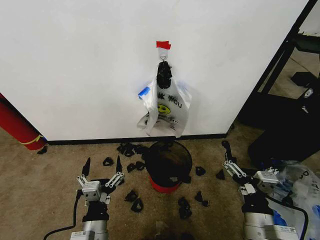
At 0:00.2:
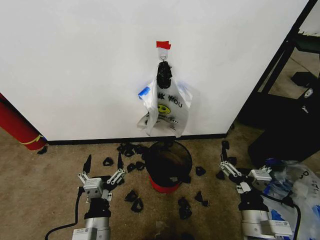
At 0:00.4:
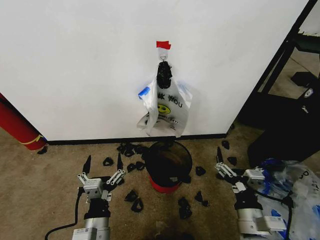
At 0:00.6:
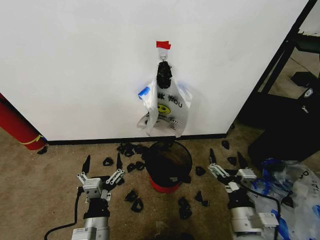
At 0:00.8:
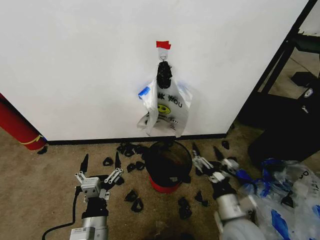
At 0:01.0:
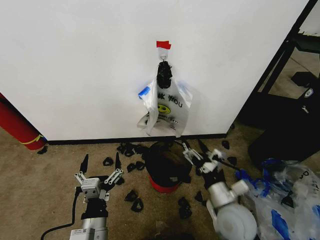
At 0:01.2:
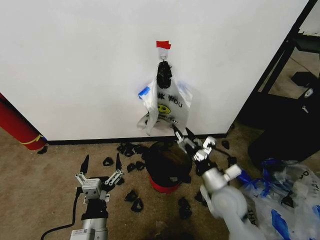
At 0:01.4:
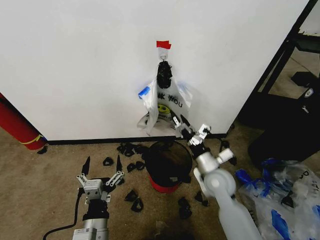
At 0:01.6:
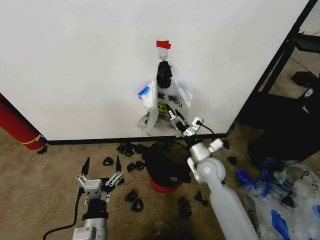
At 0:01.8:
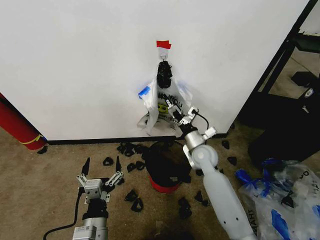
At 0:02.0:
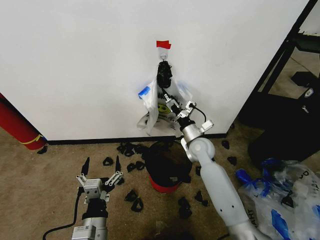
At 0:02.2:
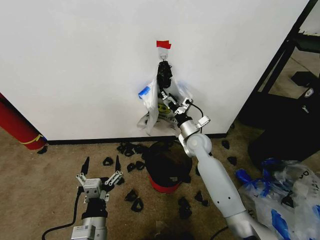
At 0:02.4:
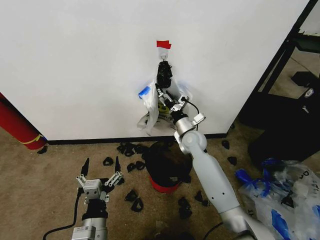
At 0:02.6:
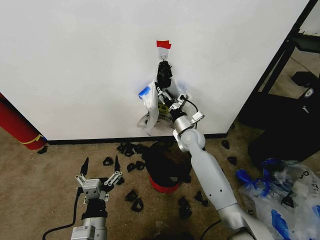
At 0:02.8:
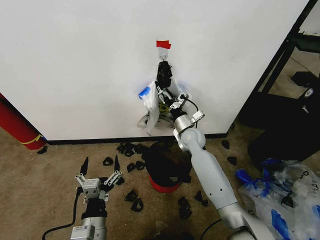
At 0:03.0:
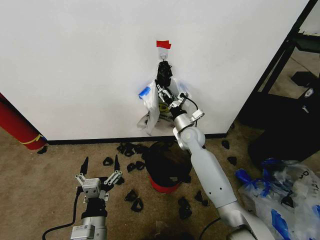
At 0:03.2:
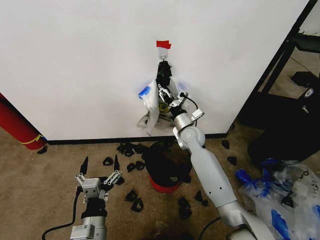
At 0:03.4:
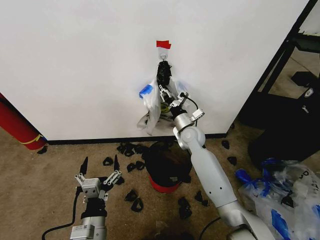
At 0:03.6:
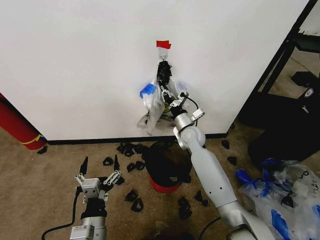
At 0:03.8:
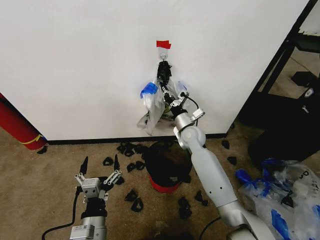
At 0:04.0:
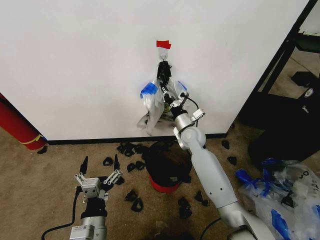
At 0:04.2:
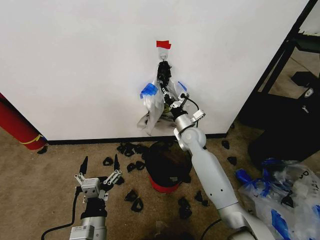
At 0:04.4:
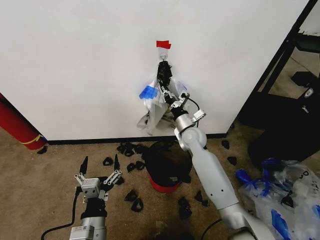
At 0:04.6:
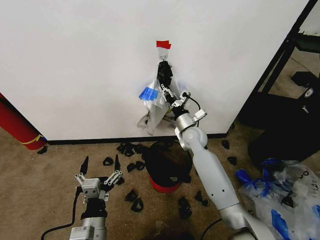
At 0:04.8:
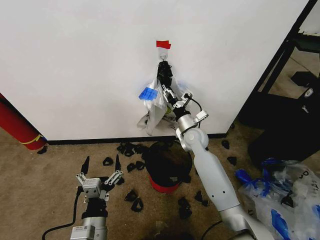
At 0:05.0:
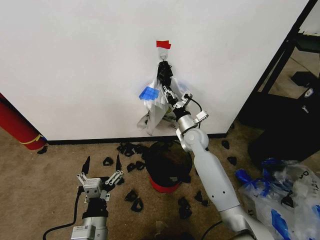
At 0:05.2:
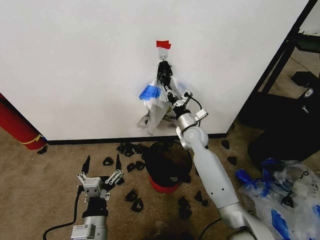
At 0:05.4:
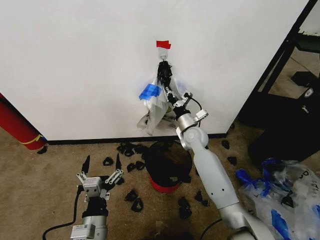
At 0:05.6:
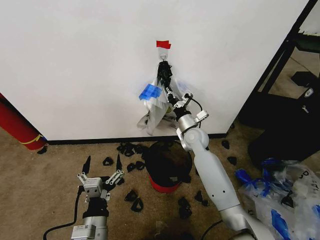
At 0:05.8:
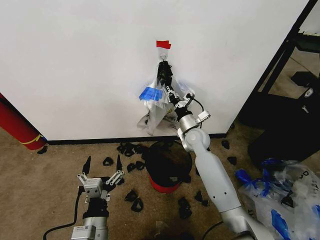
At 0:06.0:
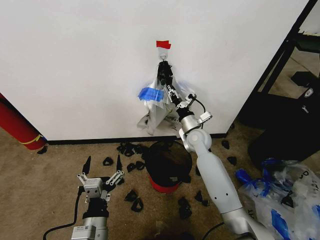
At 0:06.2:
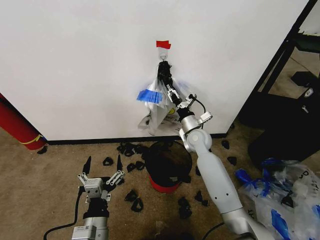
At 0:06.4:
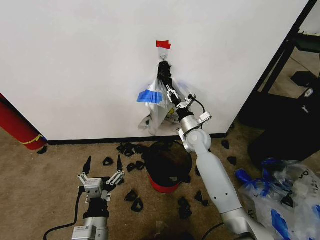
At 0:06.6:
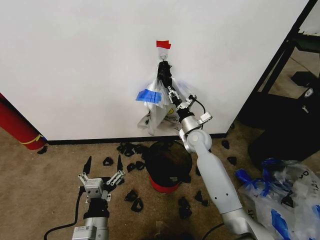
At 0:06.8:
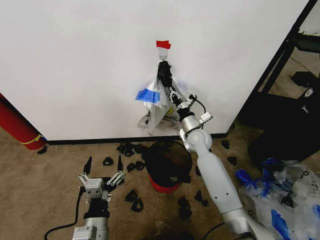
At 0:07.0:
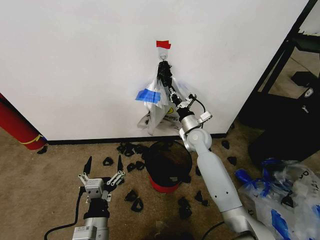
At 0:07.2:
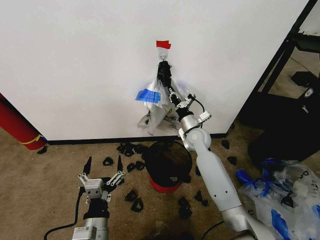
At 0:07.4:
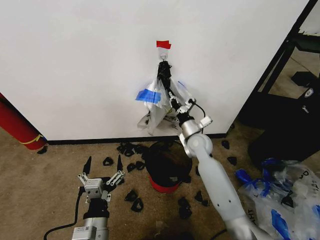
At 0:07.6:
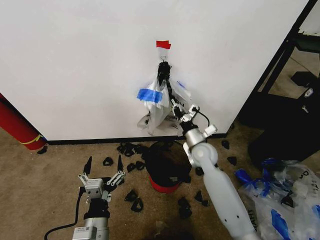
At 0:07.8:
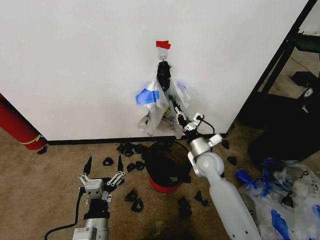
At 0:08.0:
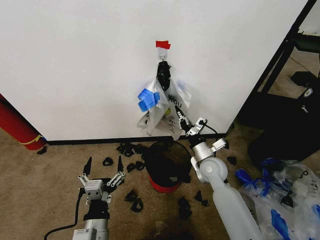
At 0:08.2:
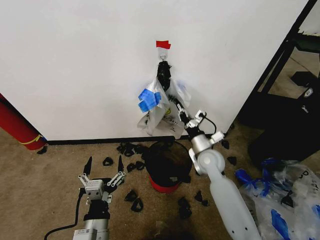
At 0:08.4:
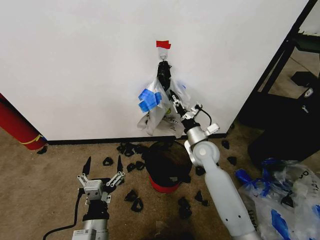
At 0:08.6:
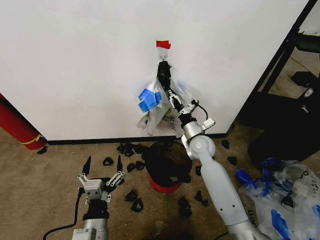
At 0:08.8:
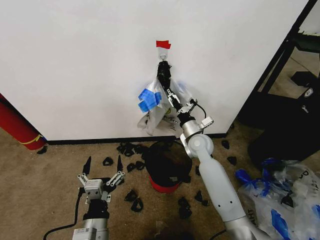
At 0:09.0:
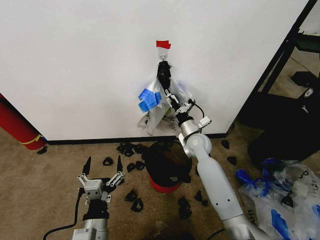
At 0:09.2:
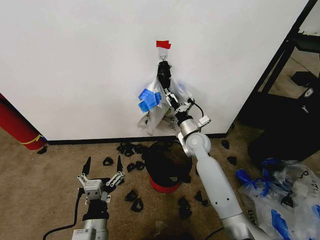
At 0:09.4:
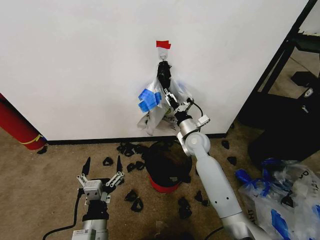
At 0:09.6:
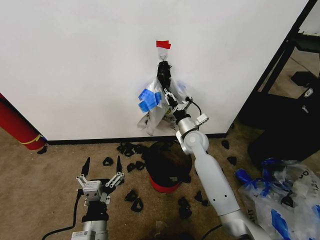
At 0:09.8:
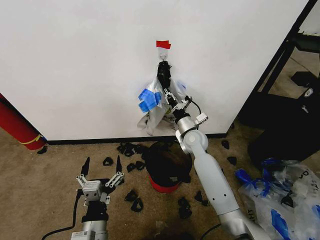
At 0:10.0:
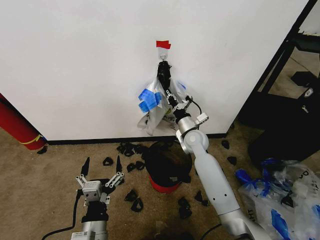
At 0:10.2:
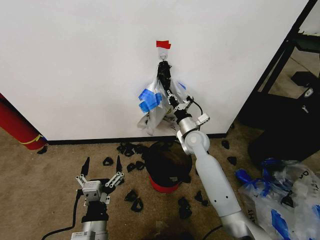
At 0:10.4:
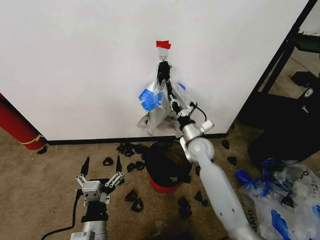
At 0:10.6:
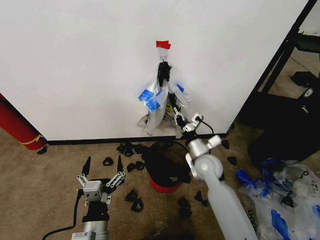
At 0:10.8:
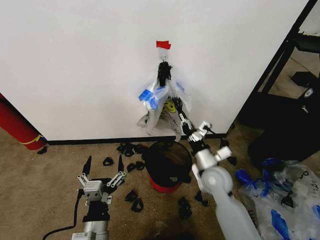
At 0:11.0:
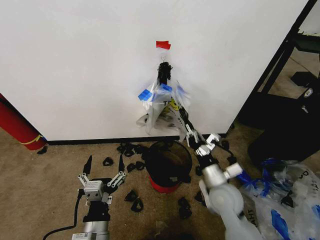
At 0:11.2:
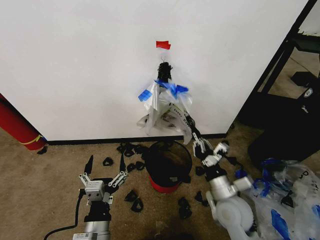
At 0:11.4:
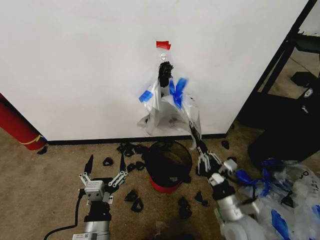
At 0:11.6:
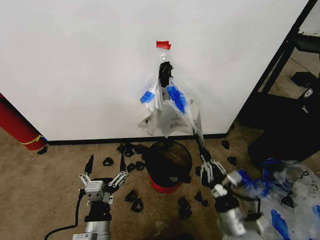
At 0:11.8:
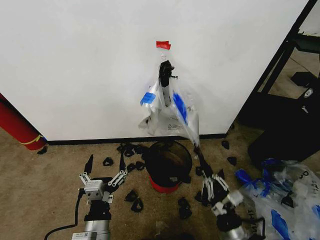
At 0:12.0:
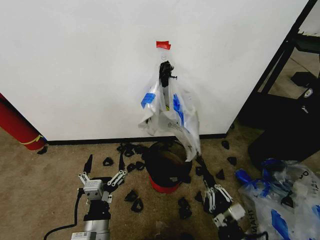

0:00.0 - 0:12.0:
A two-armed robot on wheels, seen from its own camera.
Task of the whole recording: Pick up the garbage bag from the wall and place it over the trash bin.
0:01.6 - 0:03.0: The right gripper travels forward by about 10 cm.
0:03.0 - 0:04.4: The right gripper closes up.
0:04.4 - 0:06.0: There are only small adjustments of the grippers.
0:06.0 - 0:07.6: The right gripper shifts by roughly 5 cm, and closes up.
0:07.6 - 0:09.0: The right gripper opens.
0:09.0 - 0:10.4: The right gripper closes.
0:10.4 - 0:12.0: The right gripper travels backward by some 35 cm.

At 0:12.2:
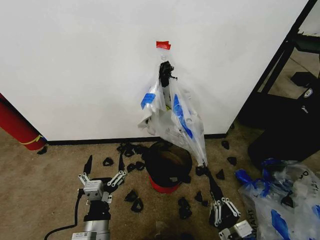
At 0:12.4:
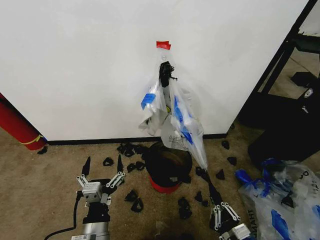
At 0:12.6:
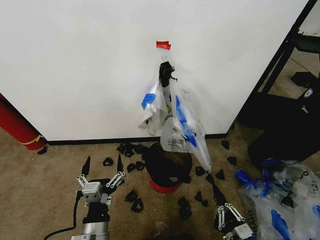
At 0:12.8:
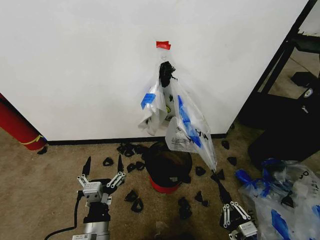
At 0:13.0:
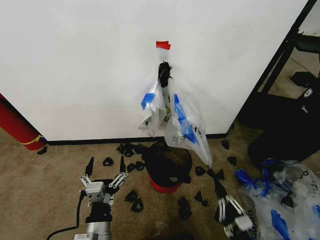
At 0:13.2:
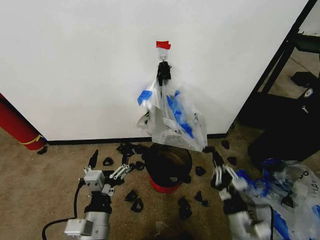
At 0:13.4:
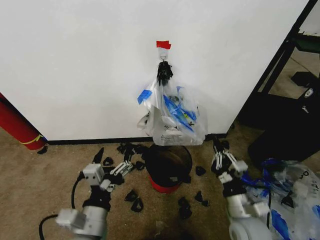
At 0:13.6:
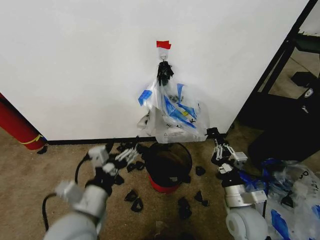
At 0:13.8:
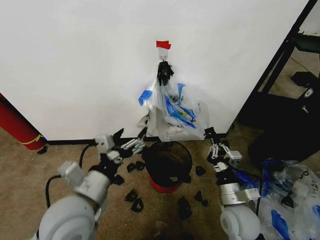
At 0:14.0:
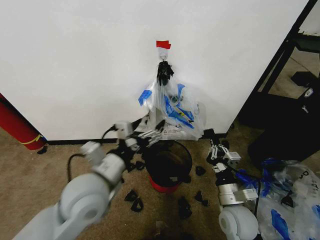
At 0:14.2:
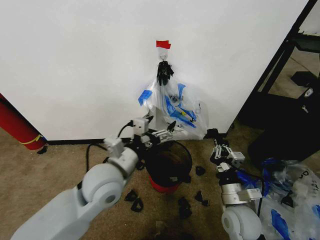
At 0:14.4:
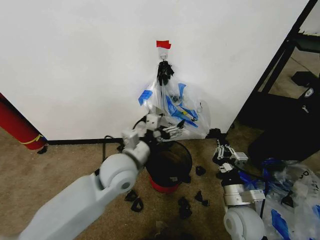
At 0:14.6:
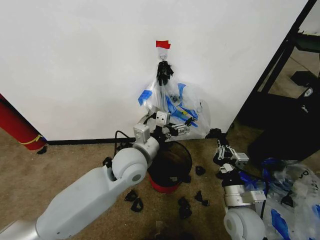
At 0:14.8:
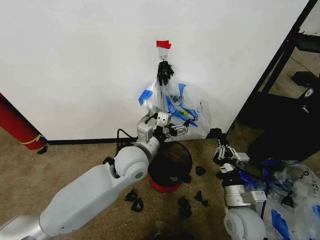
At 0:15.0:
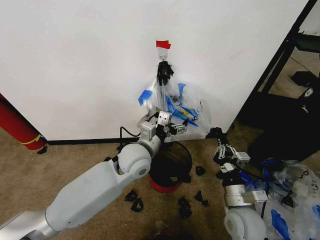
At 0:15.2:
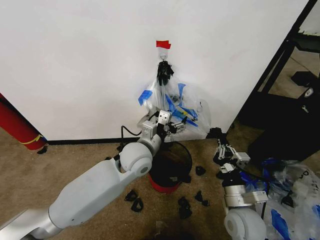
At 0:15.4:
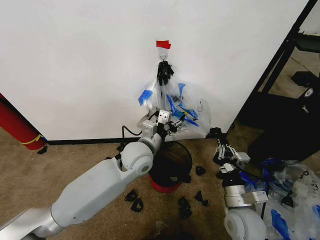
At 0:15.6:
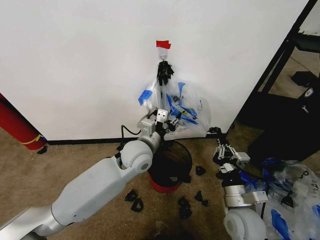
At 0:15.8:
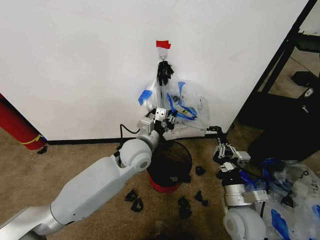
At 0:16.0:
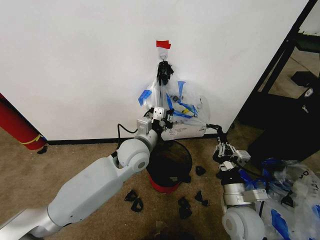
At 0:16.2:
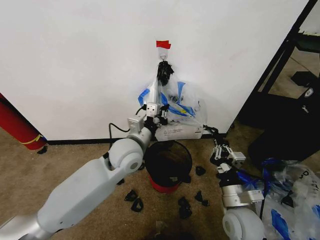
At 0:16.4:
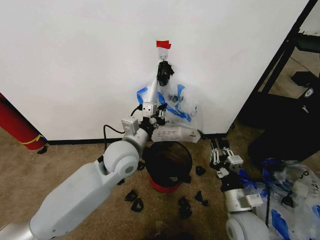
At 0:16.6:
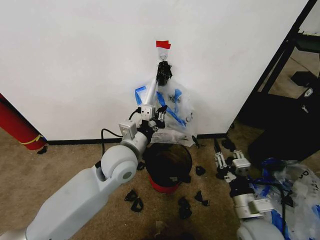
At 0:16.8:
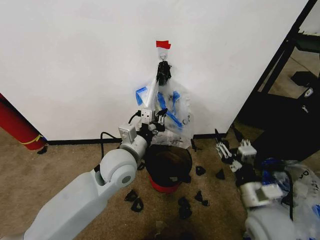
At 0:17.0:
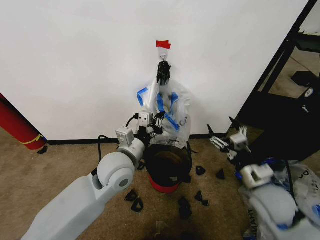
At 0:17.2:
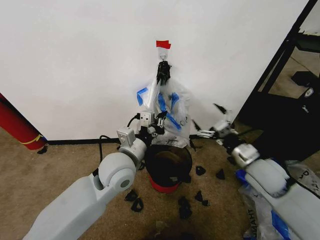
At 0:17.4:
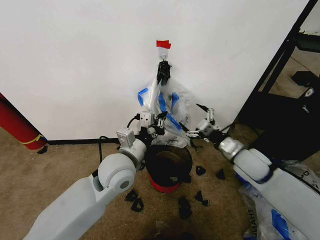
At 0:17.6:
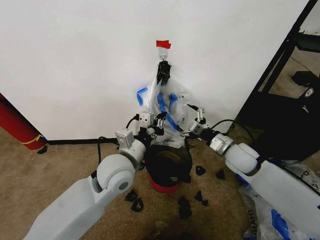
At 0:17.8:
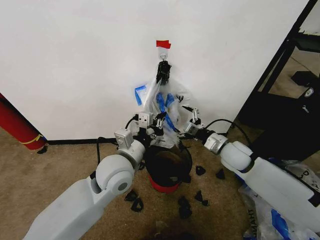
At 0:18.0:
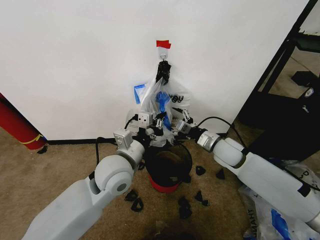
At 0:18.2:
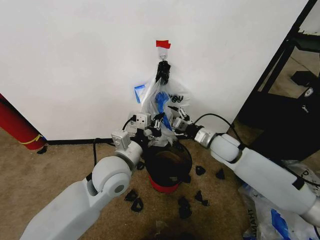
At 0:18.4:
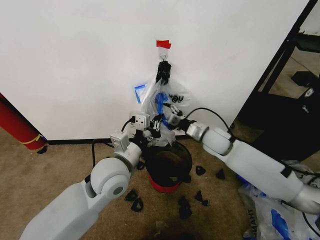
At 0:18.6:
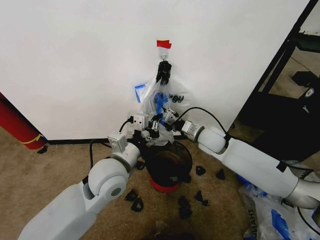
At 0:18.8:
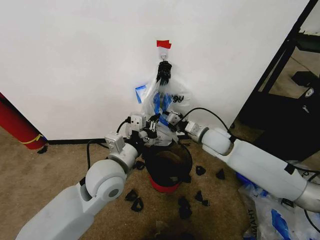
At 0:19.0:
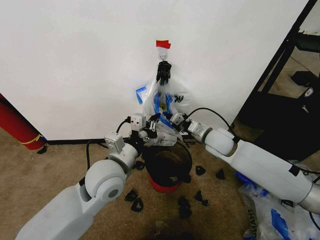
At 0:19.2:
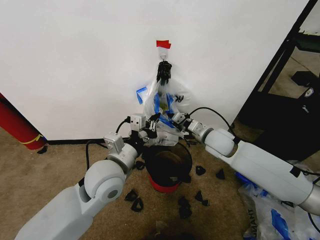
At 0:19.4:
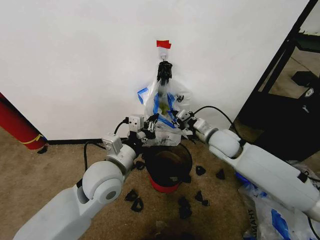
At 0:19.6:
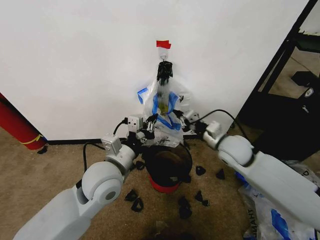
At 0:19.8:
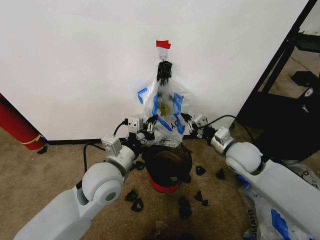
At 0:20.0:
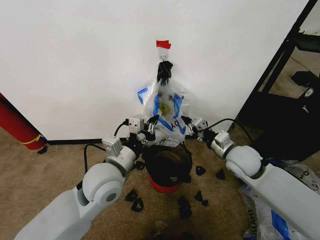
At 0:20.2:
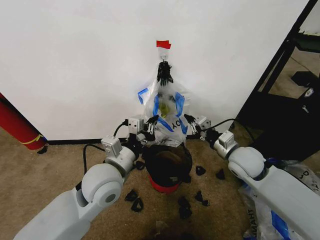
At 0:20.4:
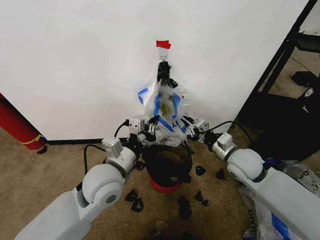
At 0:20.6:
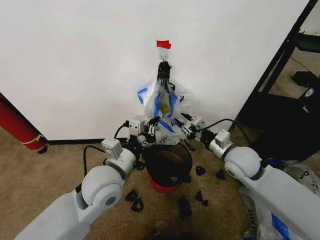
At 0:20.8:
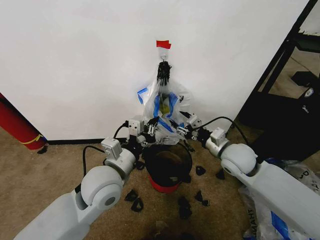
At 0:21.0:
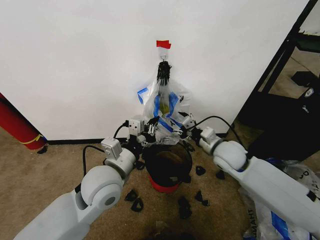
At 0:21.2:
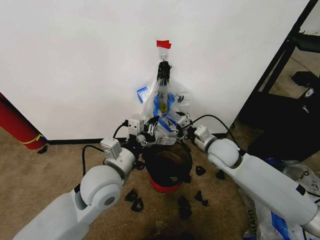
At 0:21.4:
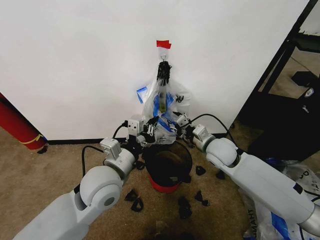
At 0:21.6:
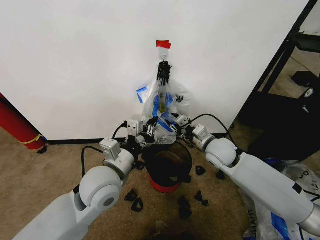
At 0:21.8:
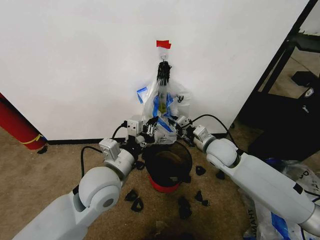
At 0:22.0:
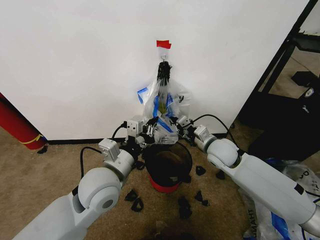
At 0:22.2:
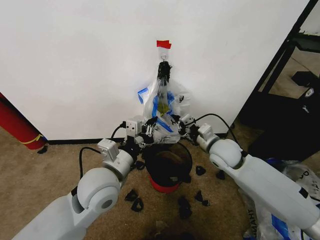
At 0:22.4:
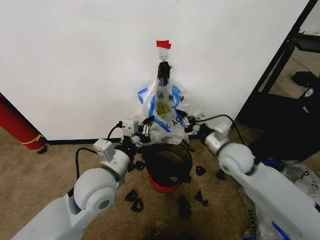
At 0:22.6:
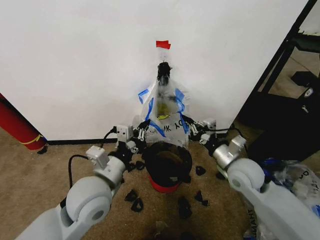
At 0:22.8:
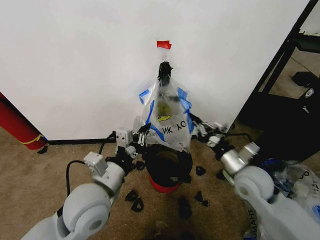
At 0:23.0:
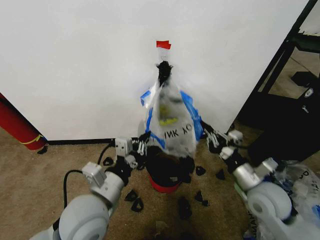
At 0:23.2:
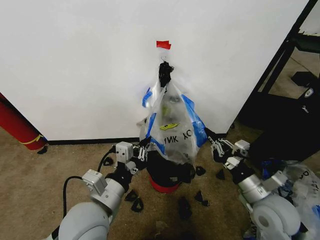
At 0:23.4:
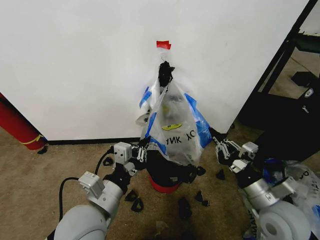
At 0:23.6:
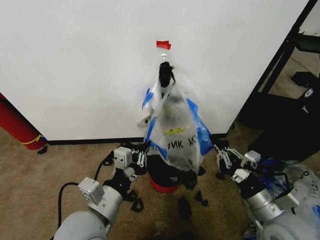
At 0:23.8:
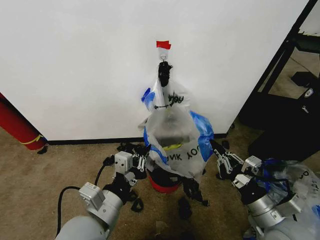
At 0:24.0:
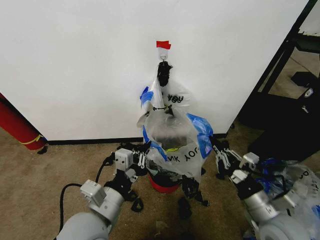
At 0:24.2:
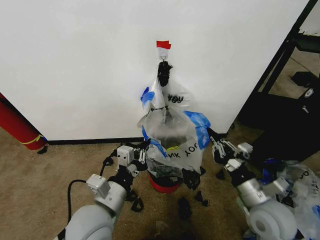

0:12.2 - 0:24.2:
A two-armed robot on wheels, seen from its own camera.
Task of the whole recording: Pick up the garbage bag from the wall and place it over the trash bin.
0:12.2 - 0:13.8: The right gripper is displaced forward and upward by some 15 cm; the left gripper is displaced upward and forward by approximately 15 cm.
0:13.8 - 0:15.2: The left gripper shifts roughly 20 cm forward and to the right.
0:15.2 - 0:16.6: The left gripper ends up approximately 5 cm from where it was, and closes up; the right gripper opens.
0:16.6 - 0:18.2: The right gripper goes about 25 cm forward.
0:18.2 - 0:19.8: The right gripper closes.
0:19.8 - 0:21.2: The right gripper opens its fingers.
0:21.2 - 0:22.6: The right gripper shifts approximately 10 cm backward, and closes its fingers.
0:22.6 - 0:24.2: The right gripper moves backward, approximately 10 cm. Meanwhile the left gripper heads backward, covering some 5 cm.
